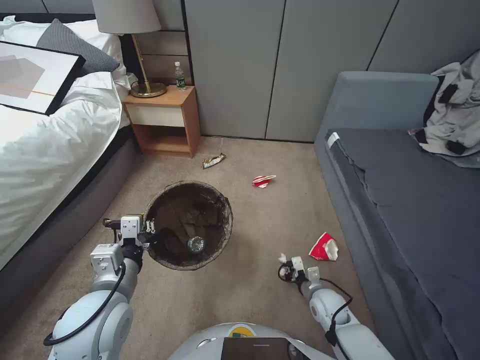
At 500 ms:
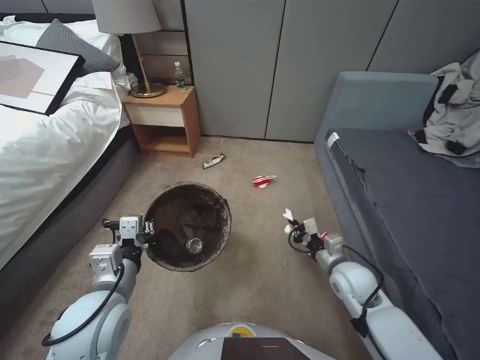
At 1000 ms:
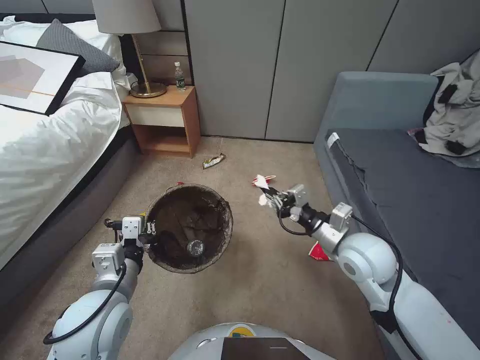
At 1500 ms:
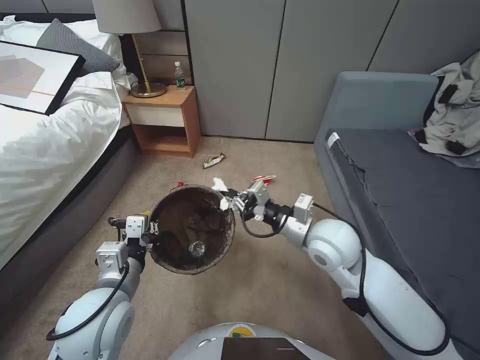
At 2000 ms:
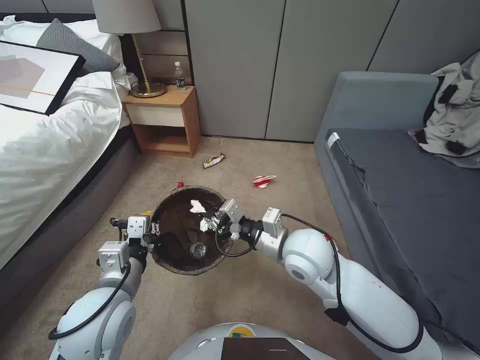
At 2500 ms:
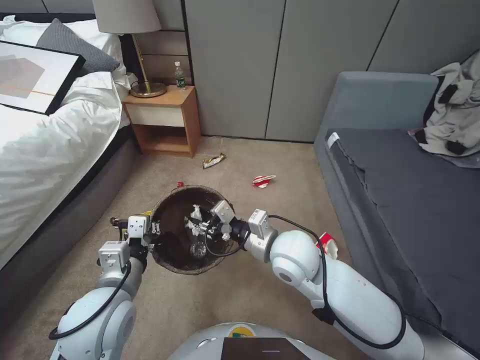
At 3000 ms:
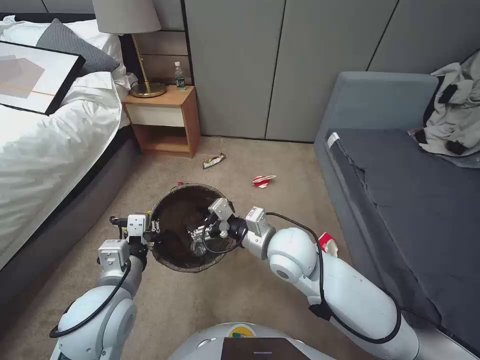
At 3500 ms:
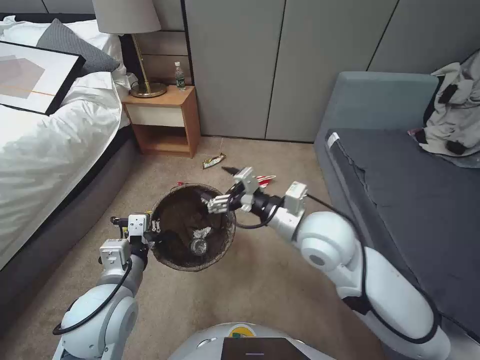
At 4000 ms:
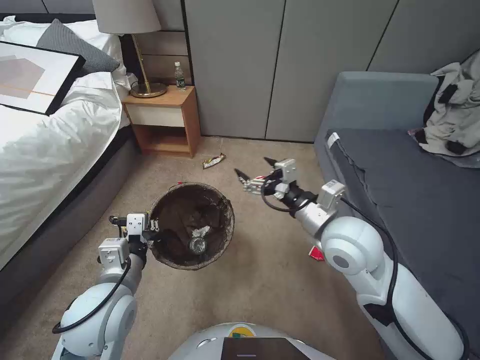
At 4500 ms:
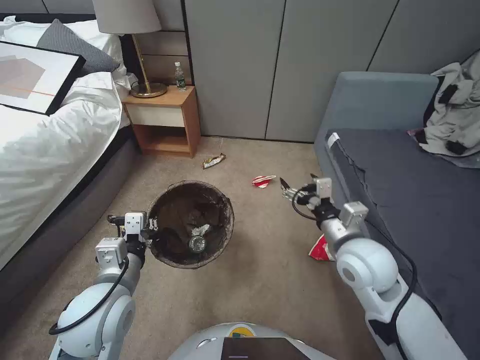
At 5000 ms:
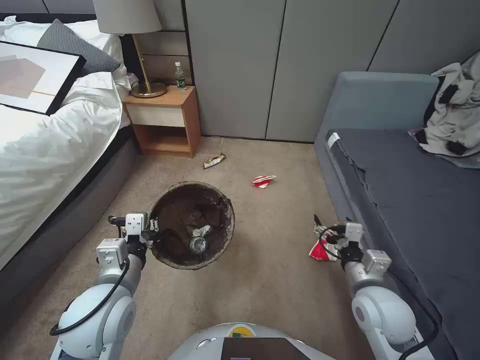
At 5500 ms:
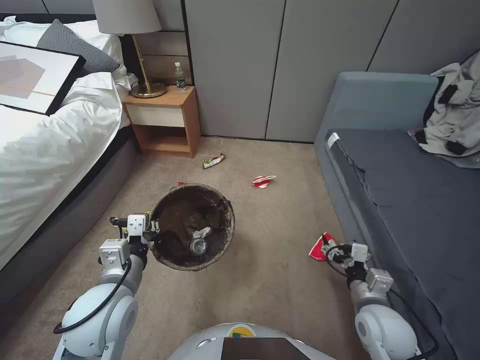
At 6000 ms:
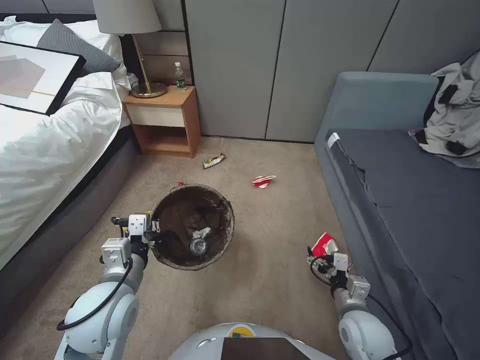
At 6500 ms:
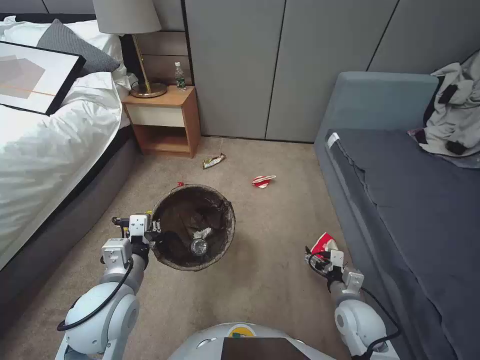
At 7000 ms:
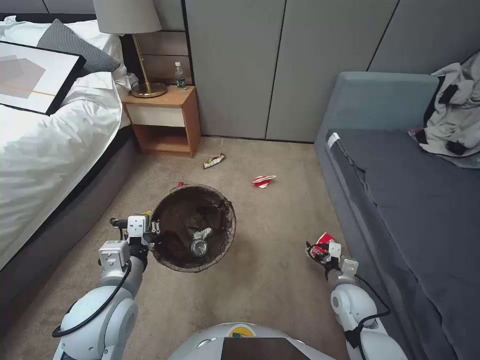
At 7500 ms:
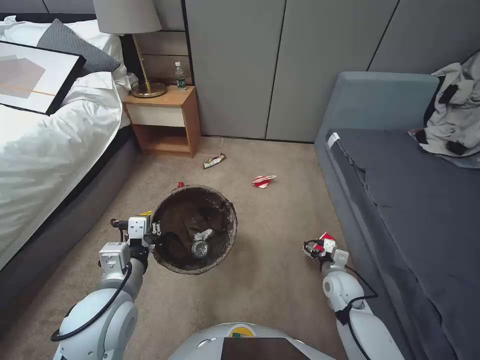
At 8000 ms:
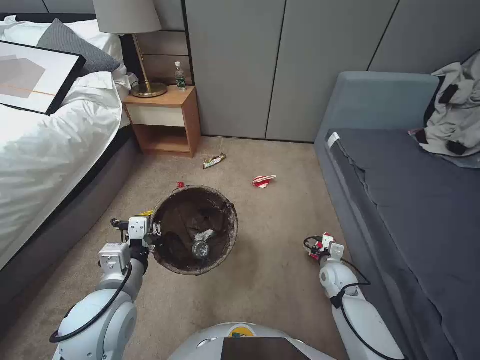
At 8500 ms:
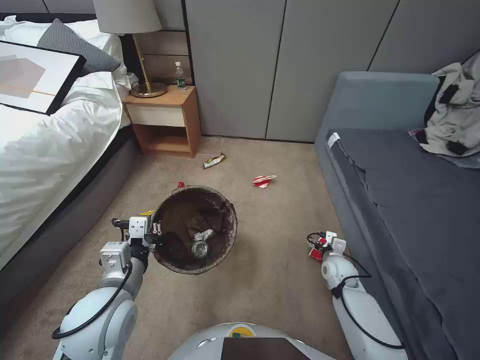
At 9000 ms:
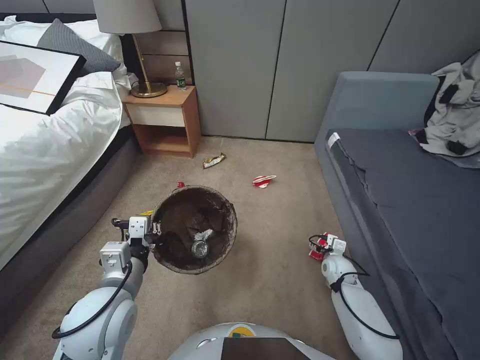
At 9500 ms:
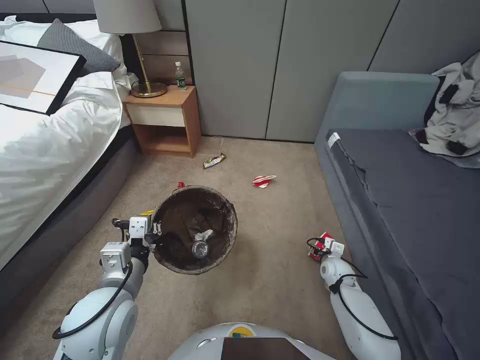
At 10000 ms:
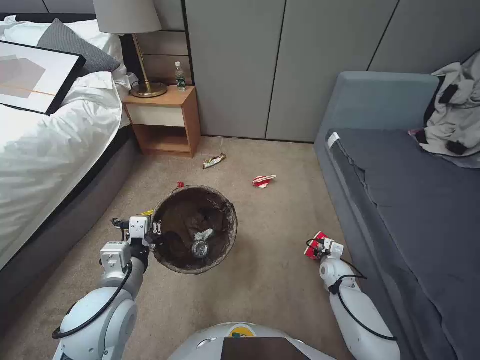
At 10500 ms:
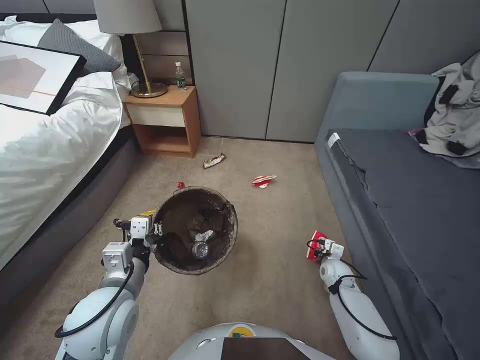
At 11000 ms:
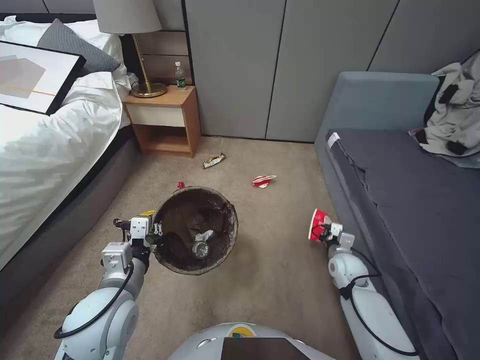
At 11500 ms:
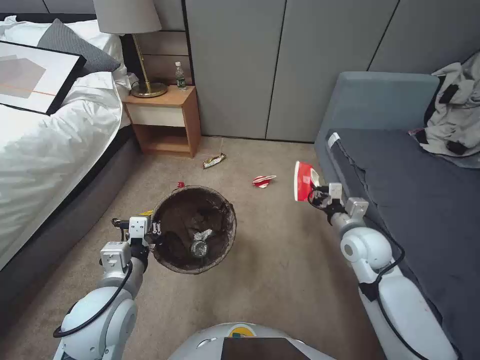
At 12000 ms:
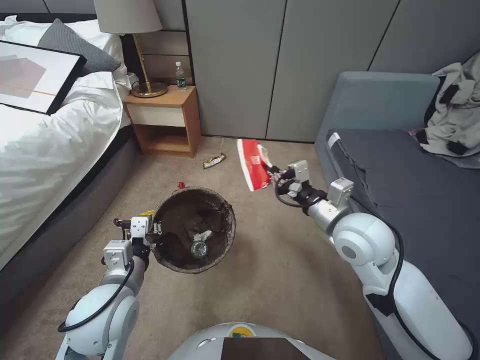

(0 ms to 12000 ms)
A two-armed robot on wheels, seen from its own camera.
Task of the whole recording: Pick up the trash bin, then pick up the garbage from the floor and place it into the trash bin.
0 ms - 2000 ms: The right gripper moves upward and to the left, roughly 35 cm.
2000 ms - 4000 ms: The right gripper travels upward by some 5 cm, and opens.
4000 ms - 6000 ms: The right gripper travels downward, backward and to the right by approximately 30 cm.
6000 ms - 8000 ms: The right gripper travels forward and downward by approximately 15 cm.
8000 ms - 10000 ms: The right gripper changes place by roughly 5 cm, and closes its fingers.
10000 ms - 12000 ms: The right gripper travels upward by some 35 cm.

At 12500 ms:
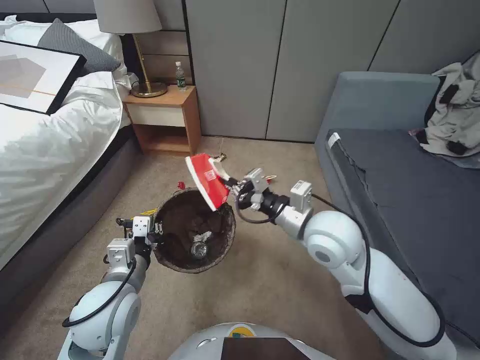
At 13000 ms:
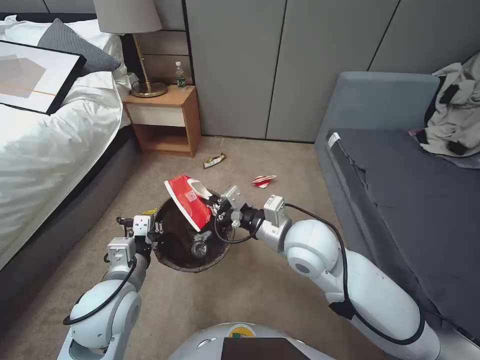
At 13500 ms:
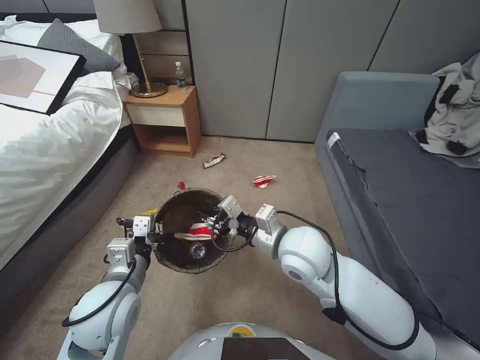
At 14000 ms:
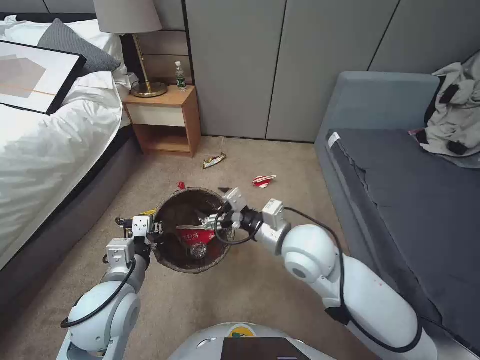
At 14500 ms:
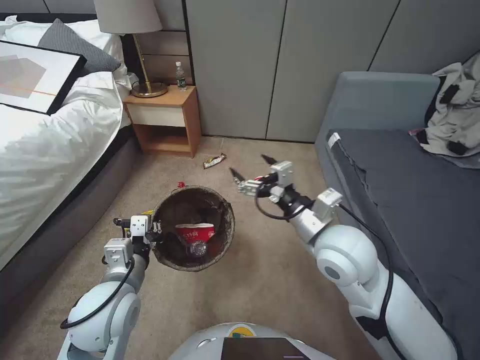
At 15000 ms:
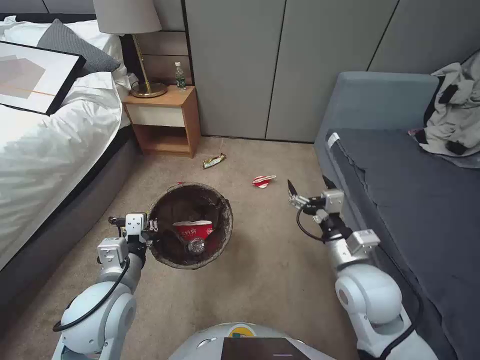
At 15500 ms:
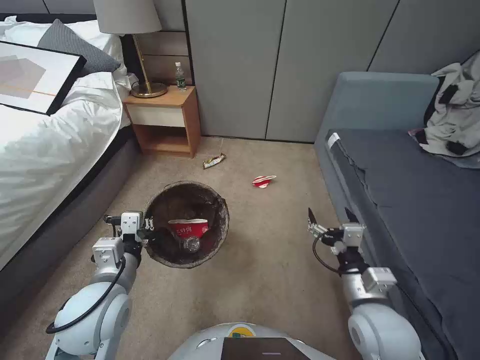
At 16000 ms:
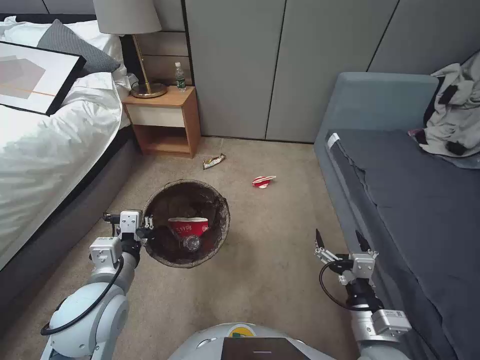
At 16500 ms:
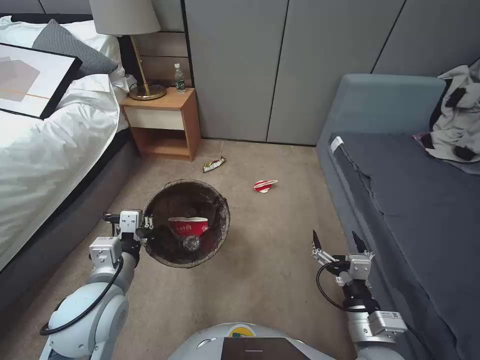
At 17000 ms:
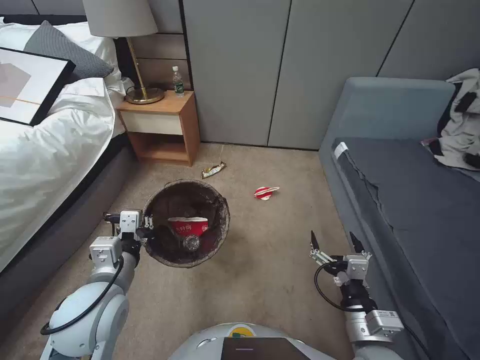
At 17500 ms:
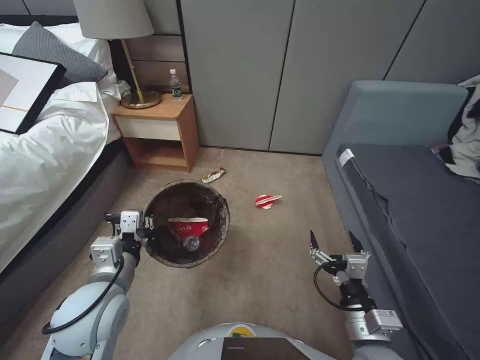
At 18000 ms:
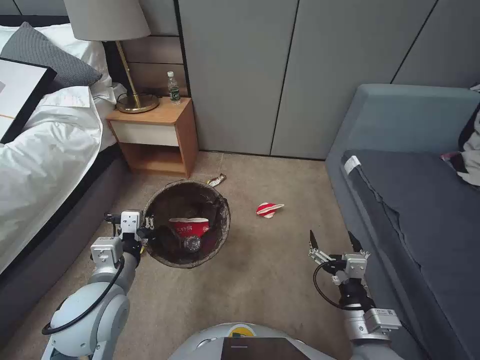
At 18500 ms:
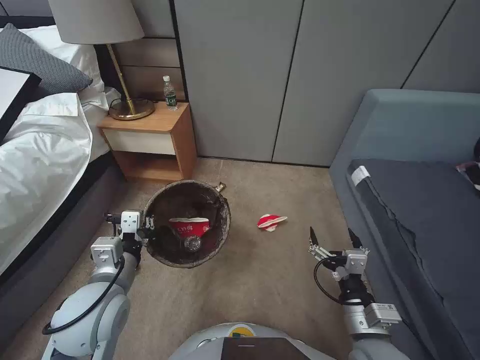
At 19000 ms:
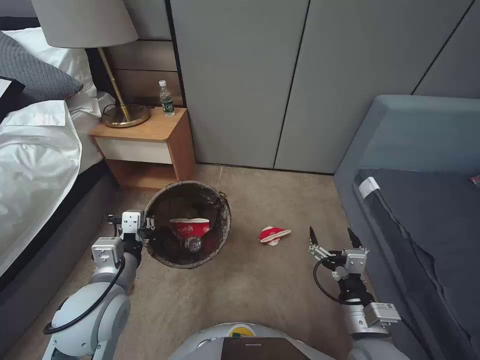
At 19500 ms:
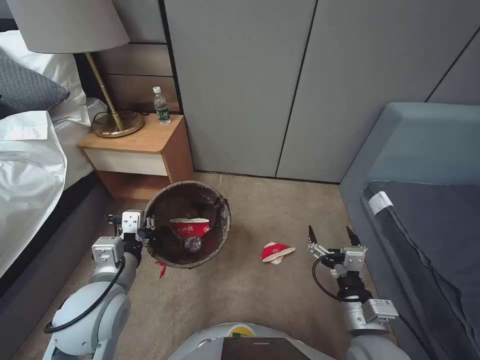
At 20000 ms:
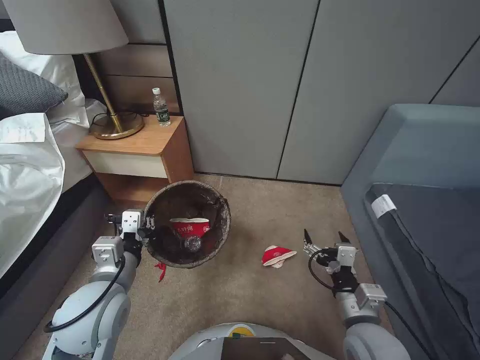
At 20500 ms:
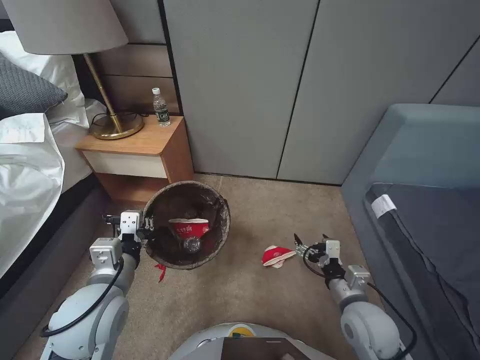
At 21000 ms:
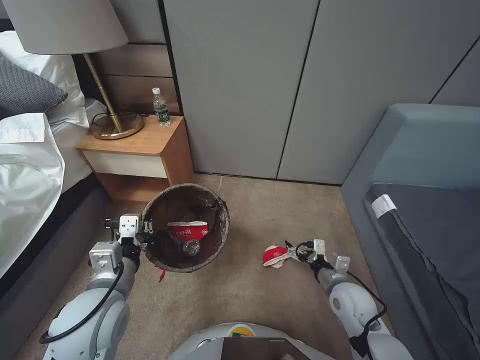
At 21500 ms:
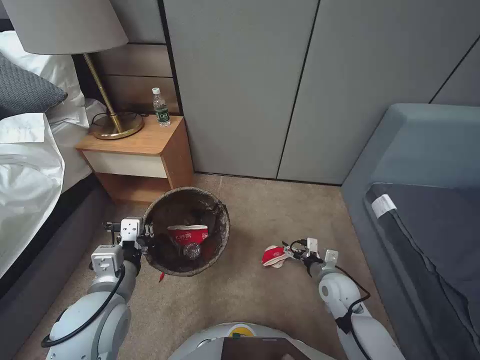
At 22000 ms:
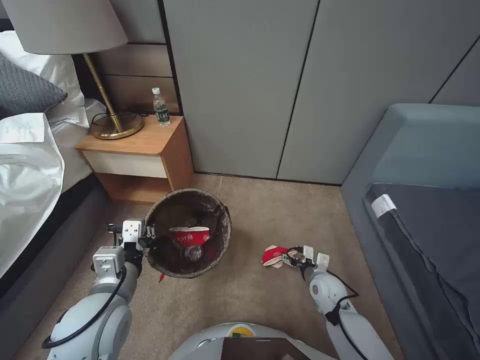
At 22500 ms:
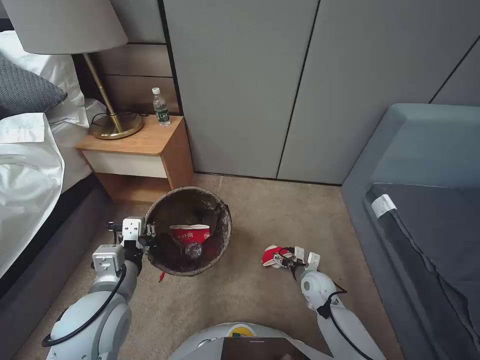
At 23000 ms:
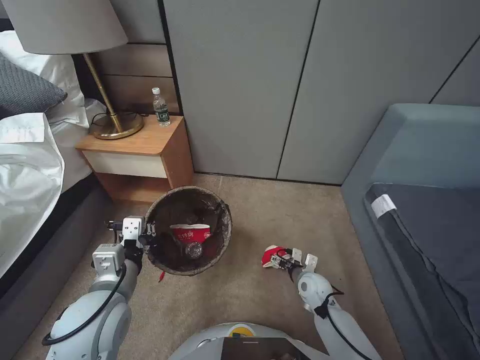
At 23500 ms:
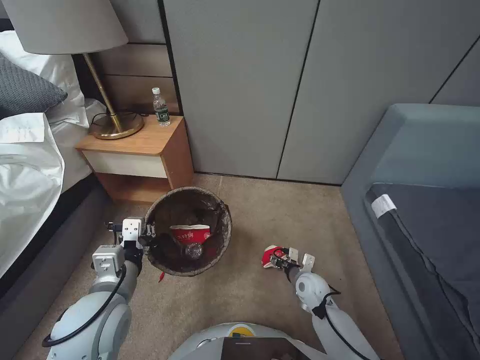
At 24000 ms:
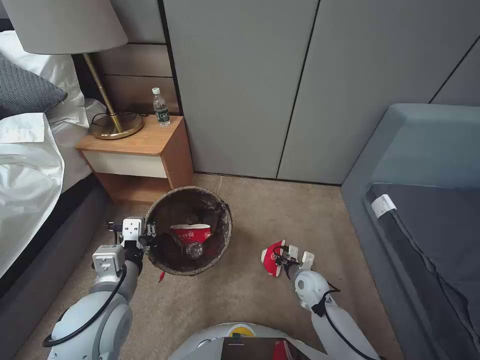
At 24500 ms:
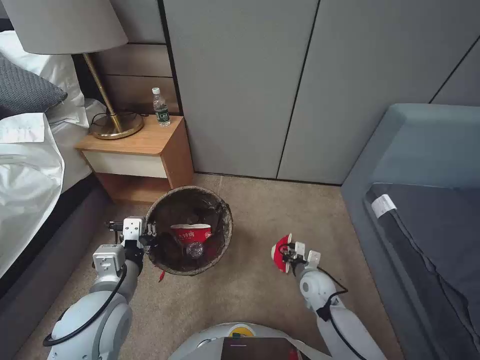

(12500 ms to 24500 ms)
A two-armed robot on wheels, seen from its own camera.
Task of the whole recording: Pick up the trash bin, then pick up the garbage from the floor and place it into the trash bin.
12500 ms - 14500 ms: The right gripper opens its fingers.
14500 ms - 16500 ms: The right gripper travels backward, downward and to the right by roughly 25 cm.
18500 ms - 20500 ms: The right gripper goes roughly 5 cm forward.
20500 ms - 22500 ms: The right gripper moves downward and forward, about 20 cm.
22500 ms - 24500 ms: The right gripper closes its fingers.

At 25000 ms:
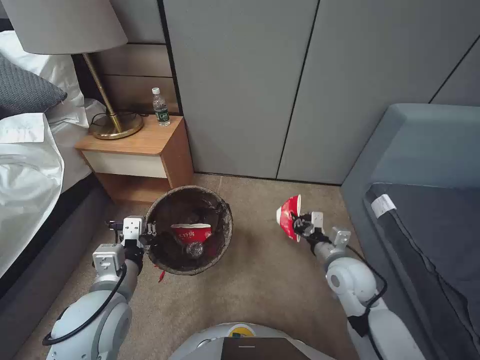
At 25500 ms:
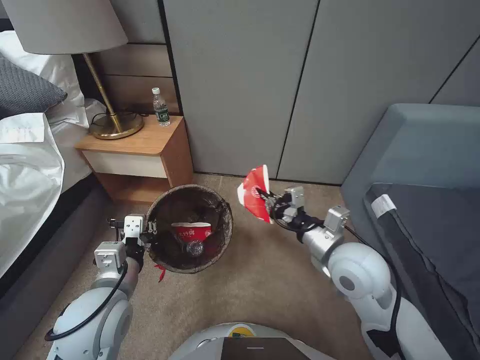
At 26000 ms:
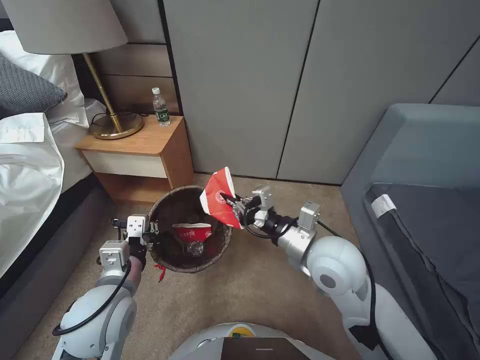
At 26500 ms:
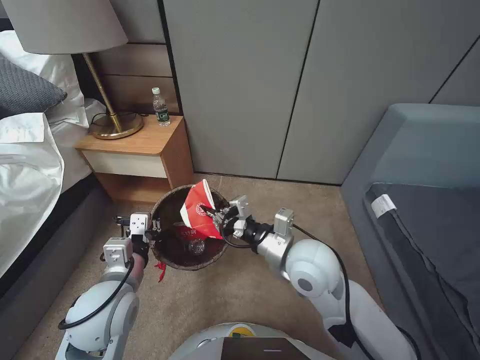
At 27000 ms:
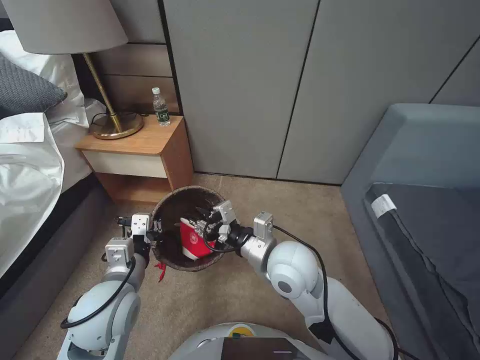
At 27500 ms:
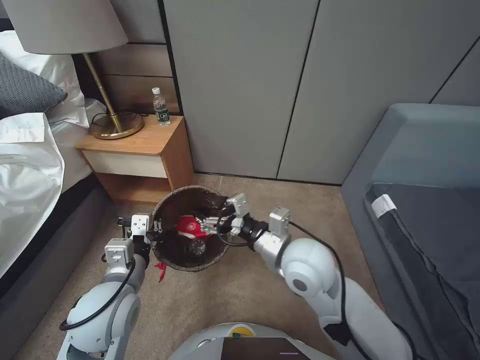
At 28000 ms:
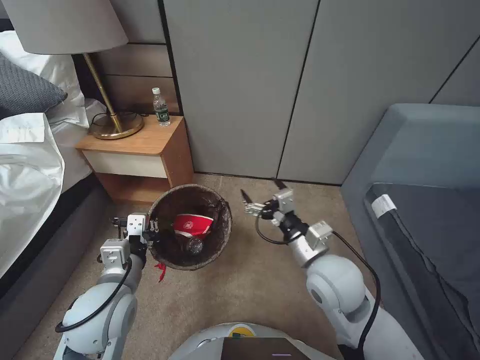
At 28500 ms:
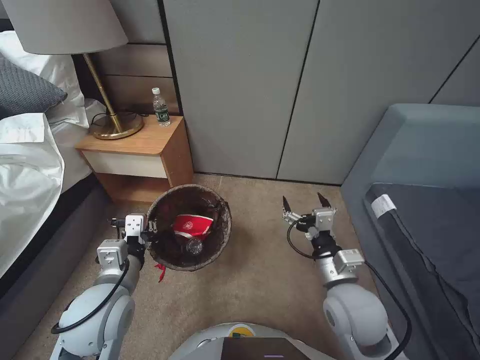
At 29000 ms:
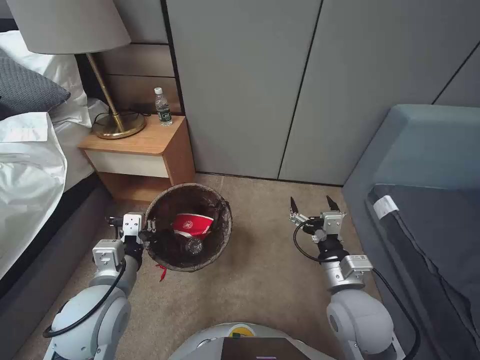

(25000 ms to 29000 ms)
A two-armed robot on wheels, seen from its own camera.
Task of the whole recording: Pick up the trash bin, then pick up the garbage from the floor and place it into the trash bin.
25000 ms - 27000 ms: The right gripper shifts some 20 cm to the left and upward.
27000 ms - 29000 ms: The right gripper heads to the right and backward, covering some 15 cm, and opens up.
